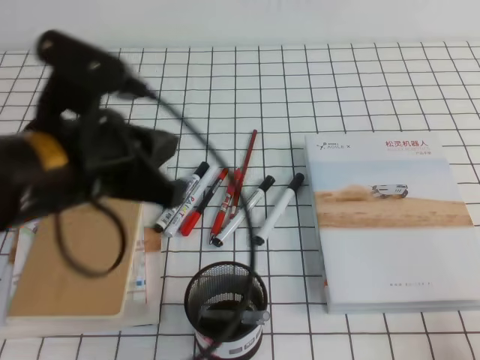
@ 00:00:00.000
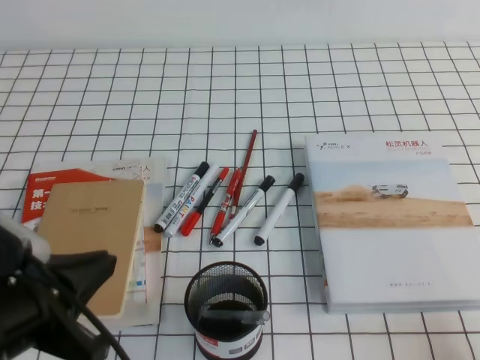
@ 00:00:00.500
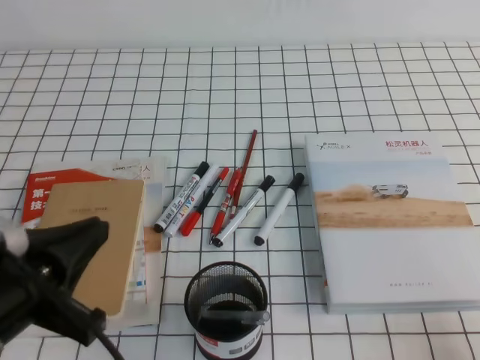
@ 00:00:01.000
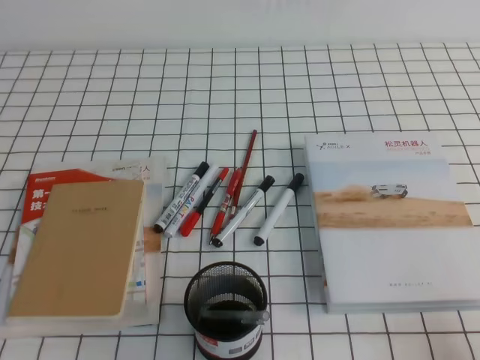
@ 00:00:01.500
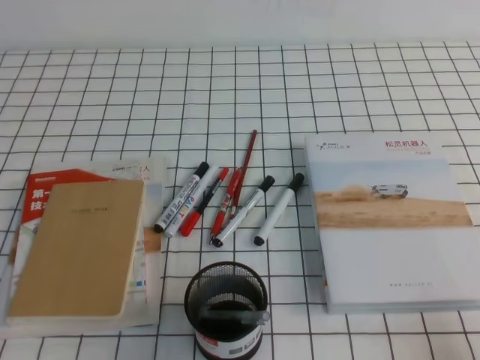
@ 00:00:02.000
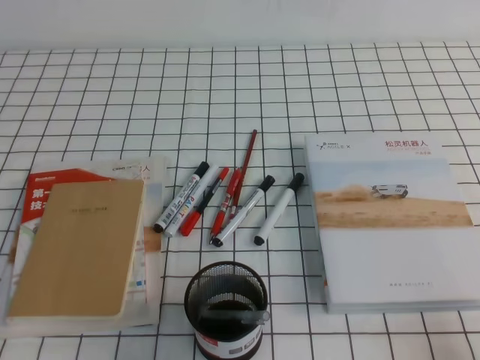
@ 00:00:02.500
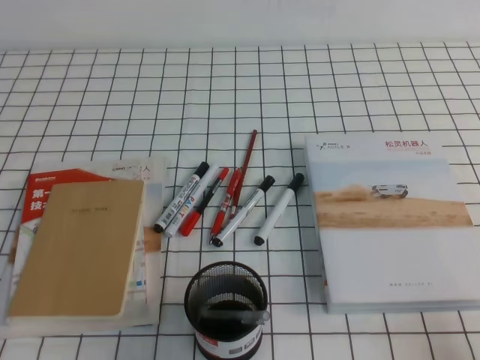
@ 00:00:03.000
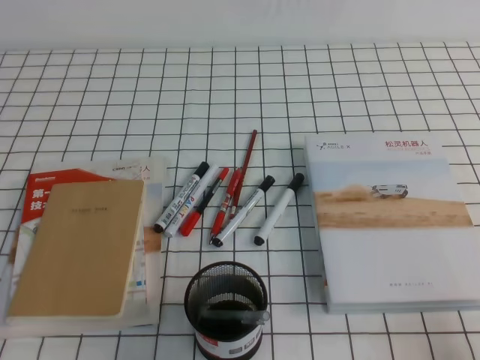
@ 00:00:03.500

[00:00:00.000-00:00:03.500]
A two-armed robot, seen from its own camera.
Step, 00:00:00.000 to 00:00:03.500: Pick up the pen from the pen holder.
00:00:00.000 to 00:00:02.000: The left gripper travels downward, backward and to the left by about 25 cm.
